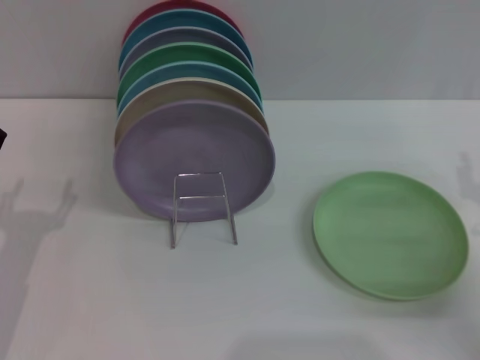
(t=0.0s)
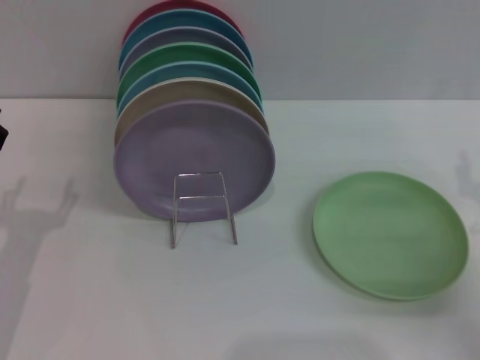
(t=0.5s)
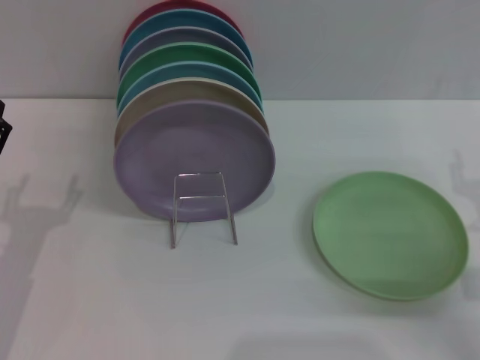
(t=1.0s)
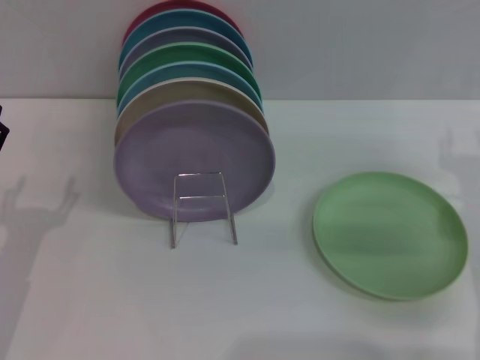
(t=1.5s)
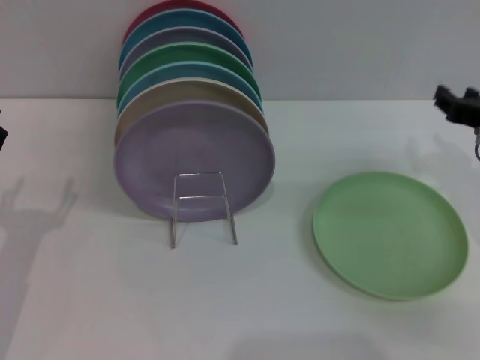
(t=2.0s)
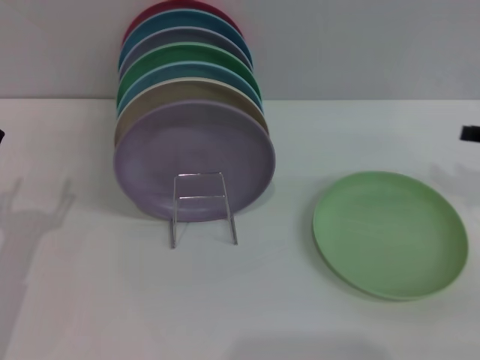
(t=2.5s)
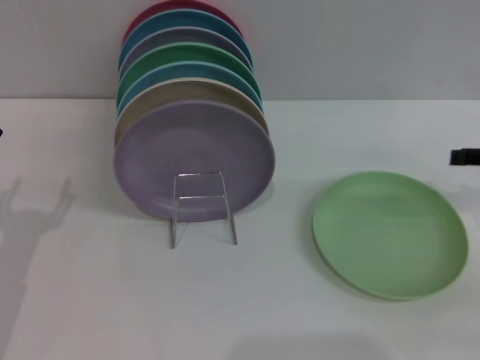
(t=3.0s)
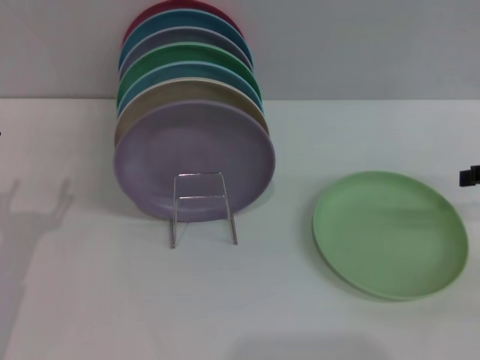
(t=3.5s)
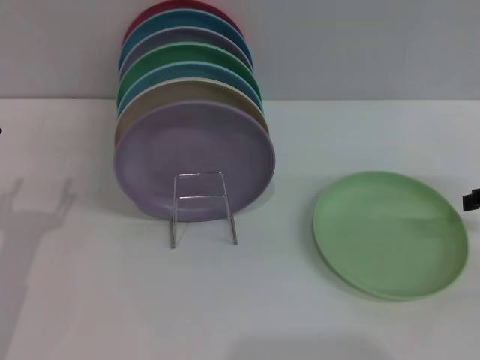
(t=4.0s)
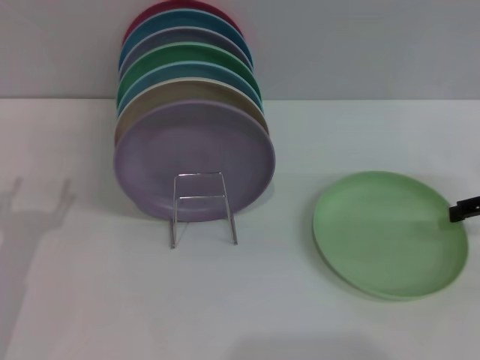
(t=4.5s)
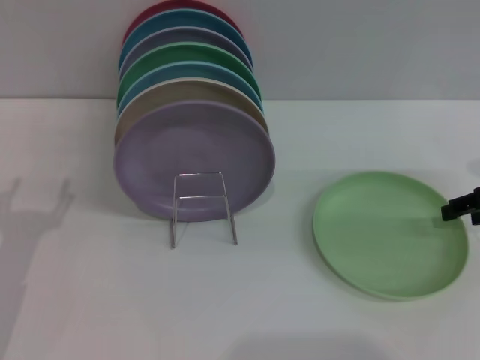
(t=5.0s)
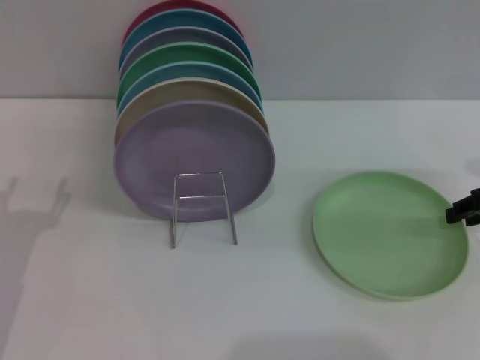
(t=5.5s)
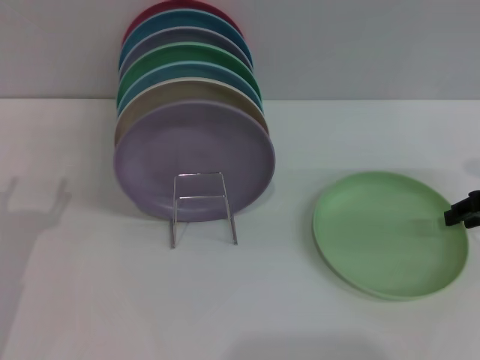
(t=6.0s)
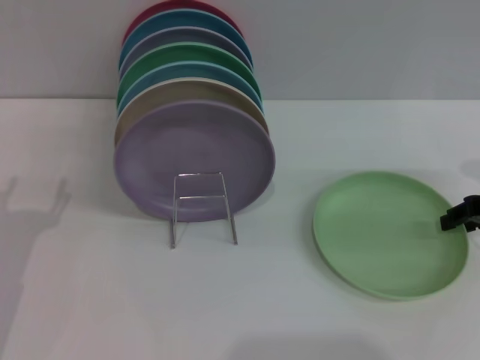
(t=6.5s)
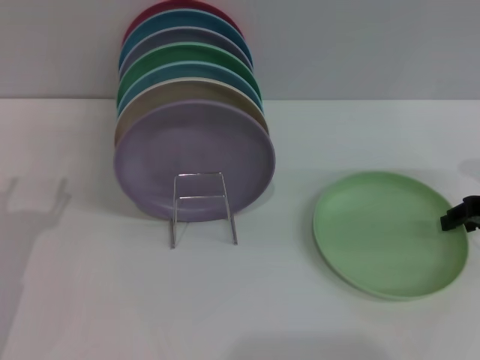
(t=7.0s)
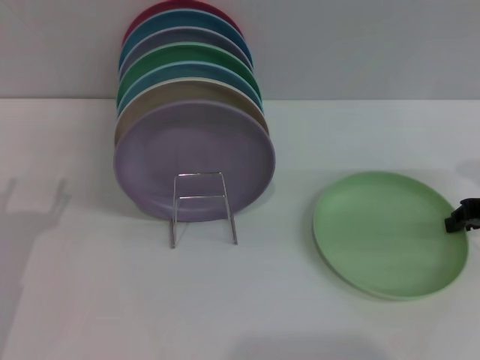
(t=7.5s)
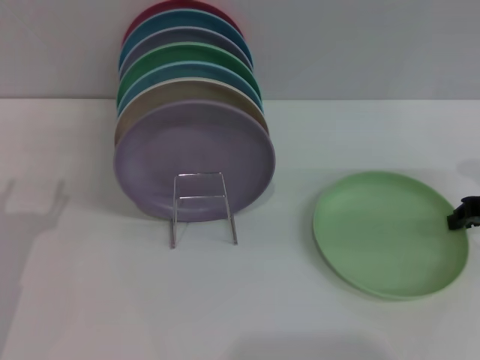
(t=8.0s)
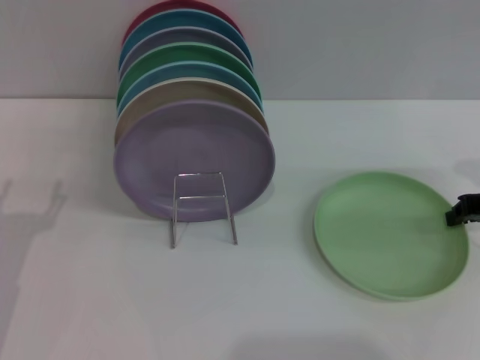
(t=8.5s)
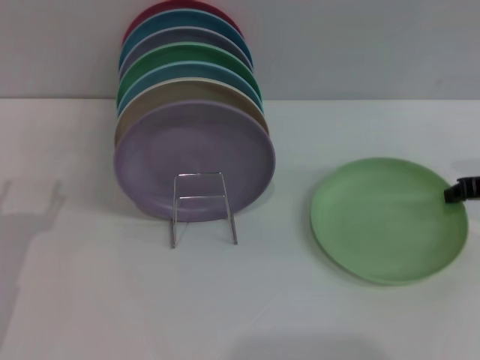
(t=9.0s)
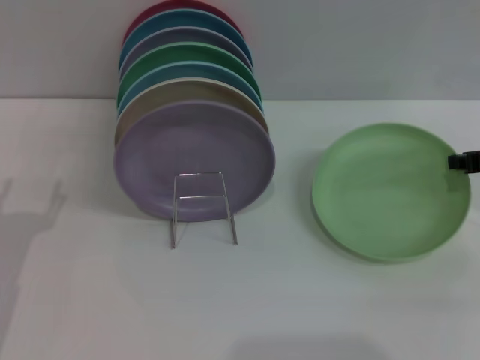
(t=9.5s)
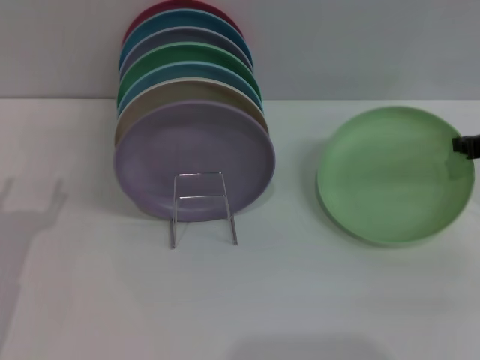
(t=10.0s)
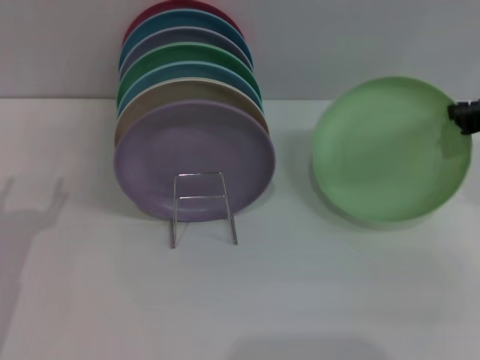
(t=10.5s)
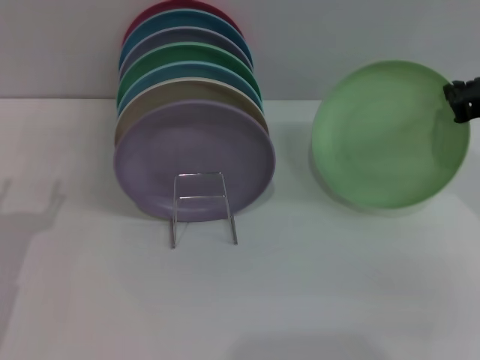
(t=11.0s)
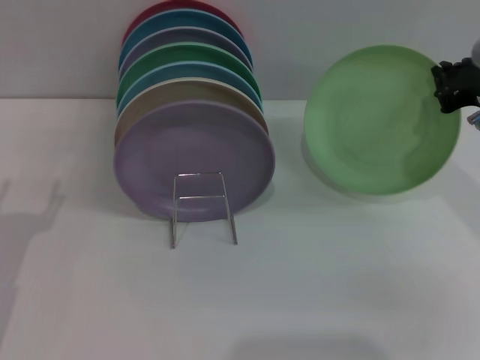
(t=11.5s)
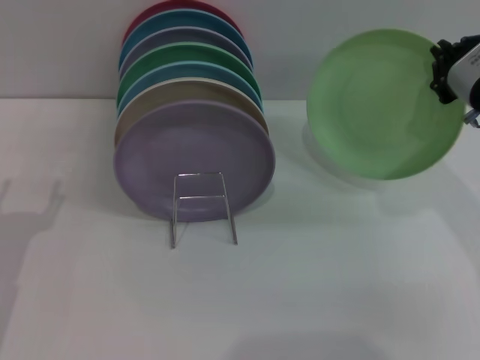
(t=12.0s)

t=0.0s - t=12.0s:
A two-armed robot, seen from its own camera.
Task of the whole recording: Grip the plate with one hand, pass it to the other, then set it on the shelf.
t=0.0s - t=2.0s: The right gripper moves forward and upward, some 10 cm.
t=2.0s - t=4.0s: The right gripper shifts some 10 cm to the right, and opens up.
t=6.0s - t=8.0s: Both grippers stay put.
t=10.0s - t=12.0s: The right gripper is displaced to the left by about 10 cm.

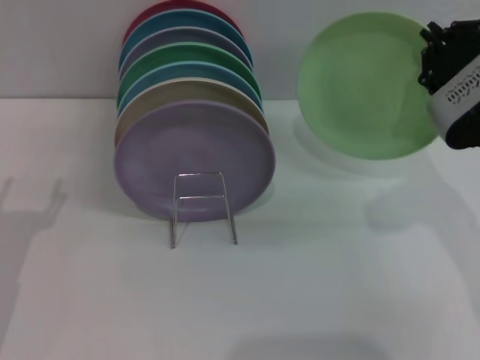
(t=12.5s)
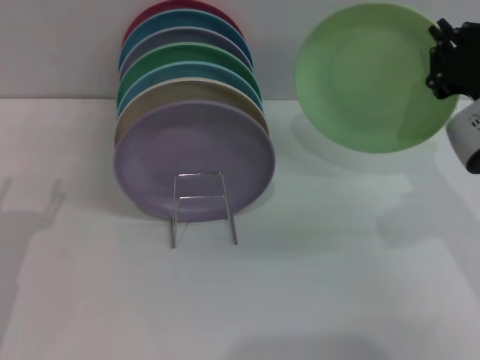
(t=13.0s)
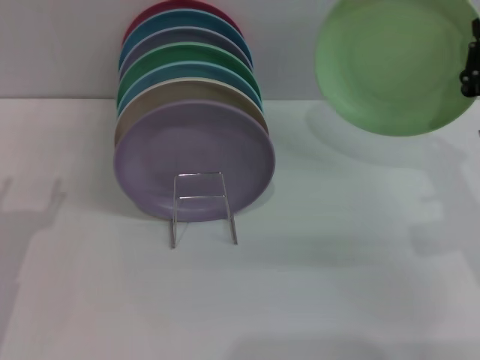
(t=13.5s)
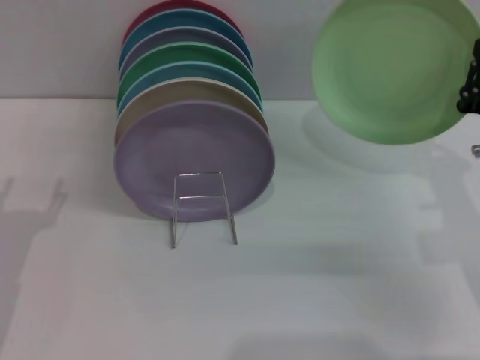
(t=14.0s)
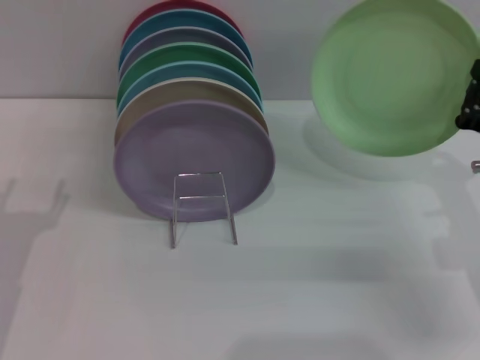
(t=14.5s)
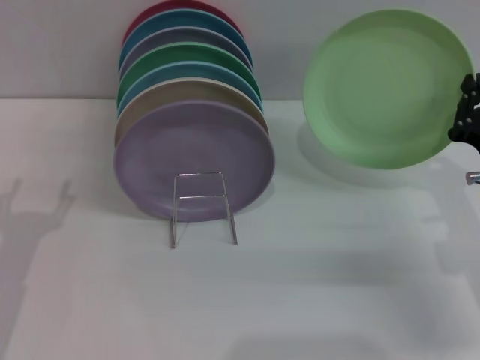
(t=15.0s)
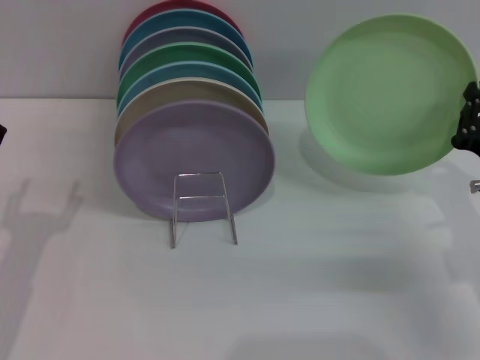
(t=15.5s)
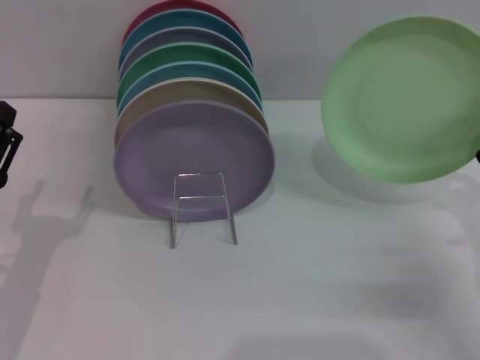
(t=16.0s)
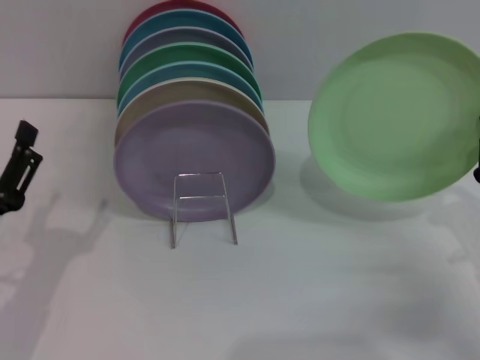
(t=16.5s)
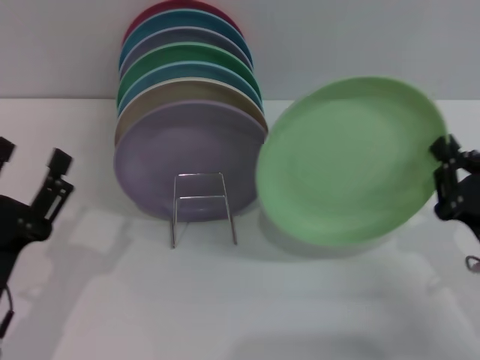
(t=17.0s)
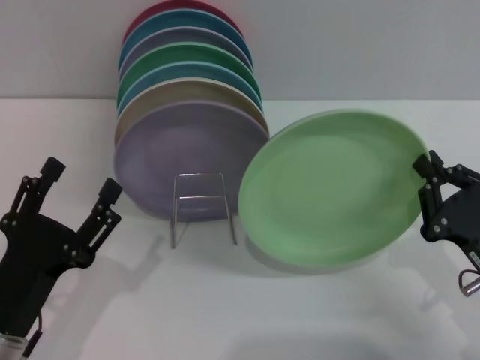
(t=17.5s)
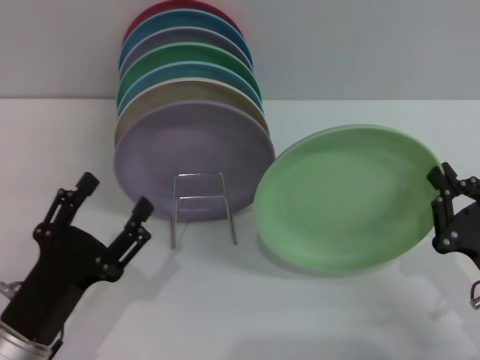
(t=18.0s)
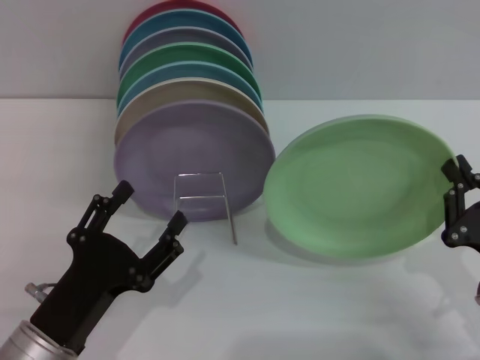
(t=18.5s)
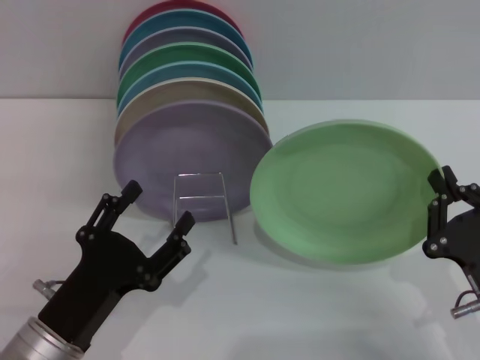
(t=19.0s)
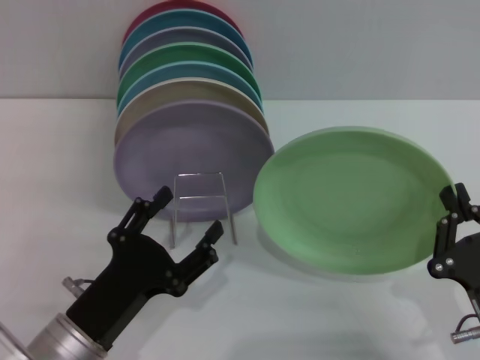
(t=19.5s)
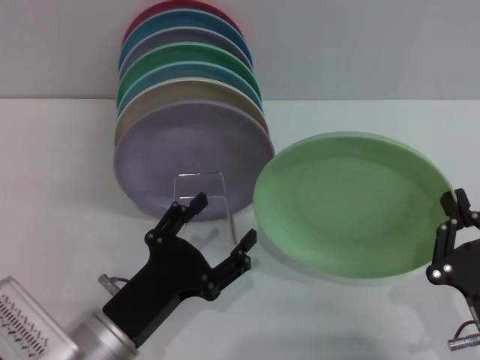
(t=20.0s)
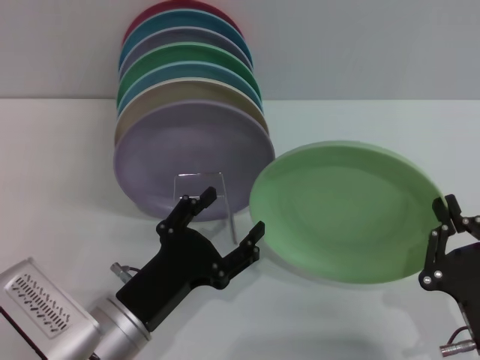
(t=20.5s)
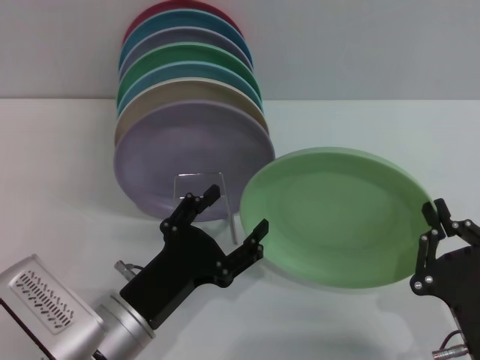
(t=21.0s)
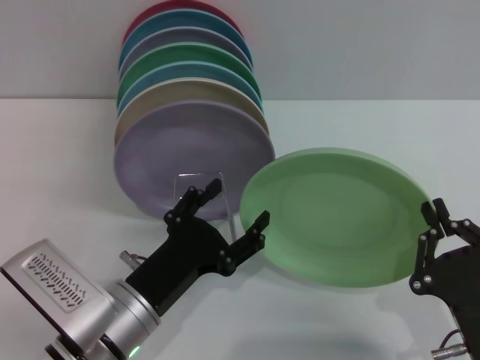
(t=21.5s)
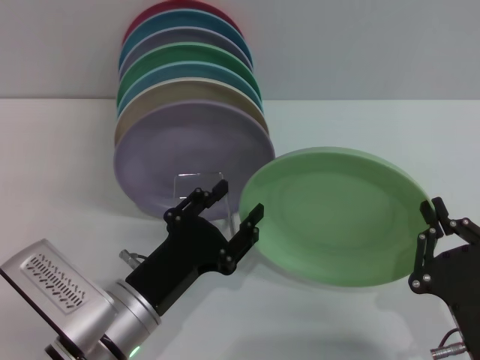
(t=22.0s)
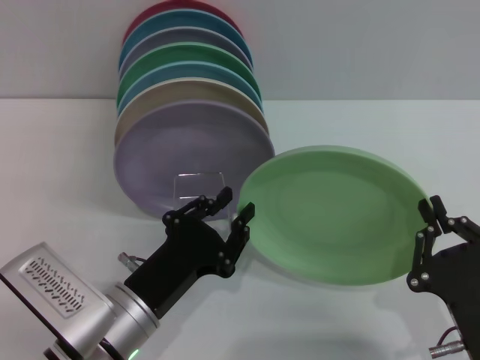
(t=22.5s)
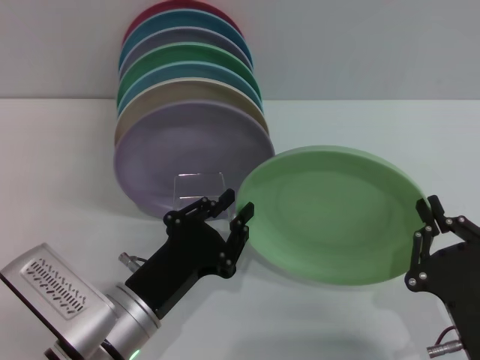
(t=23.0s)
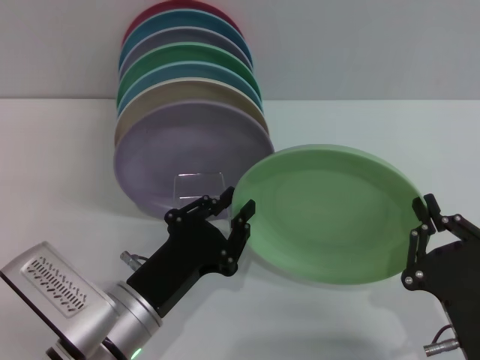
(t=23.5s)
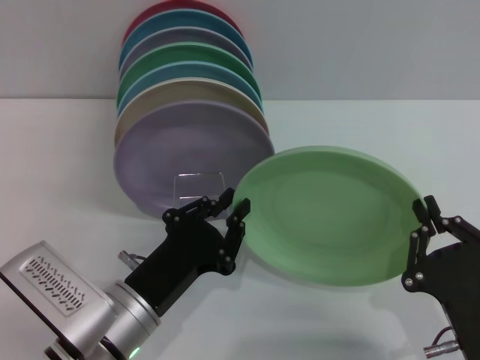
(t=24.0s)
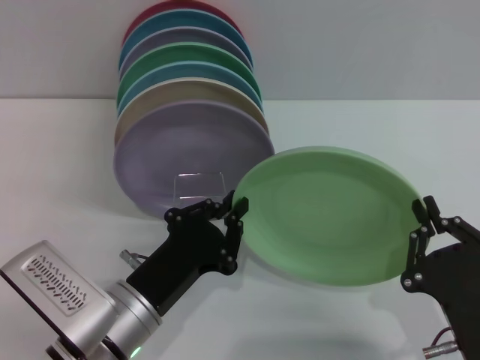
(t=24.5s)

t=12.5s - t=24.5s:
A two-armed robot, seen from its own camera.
Task of the whole recording: Grip the plate with one hand, pass it to the other, then set it on the shelf.
t=12.5s - t=14.5s: The right gripper is displaced downward by approximately 10 cm.
t=14.5s - t=16.5s: The right gripper is displaced backward by some 5 cm.
t=16.5s - t=18.5s: The left gripper shifts about 5 cm to the right. Meanwhile the right gripper ends up approximately 5 cm from where it was.
t=18.5s - t=20.5s: The left gripper travels to the right by approximately 5 cm, while the right gripper is displaced to the left and backward by about 10 cm.
t=20.5s - t=22.5s: The left gripper closes.
t=22.5s - t=24.5s: Both grippers stay about where they are.

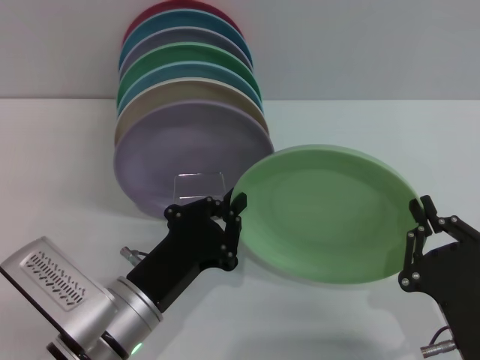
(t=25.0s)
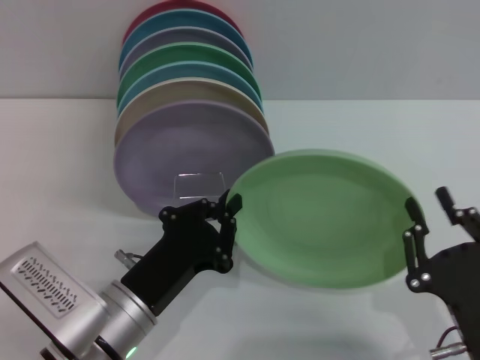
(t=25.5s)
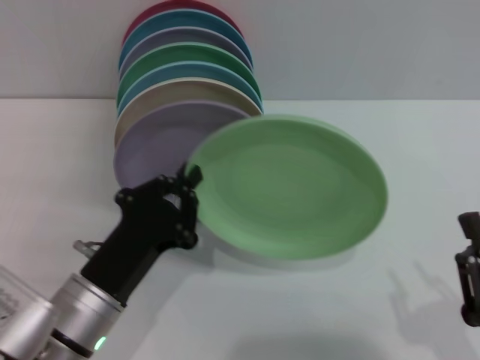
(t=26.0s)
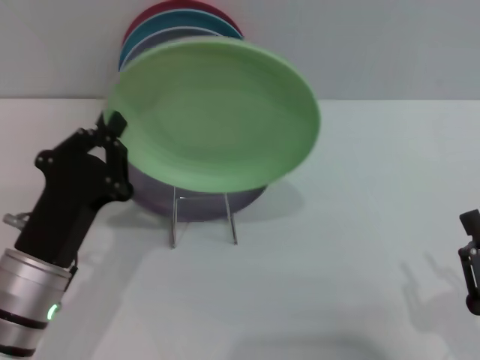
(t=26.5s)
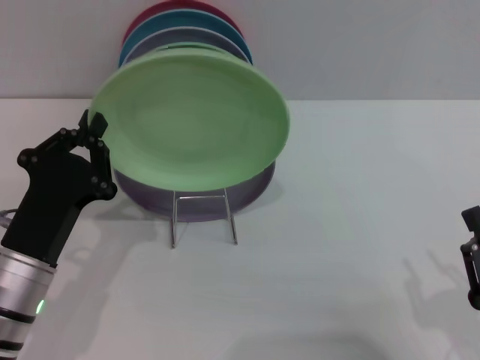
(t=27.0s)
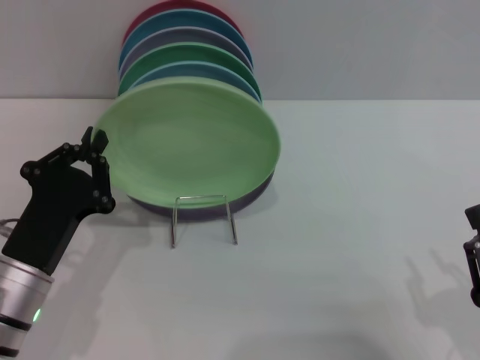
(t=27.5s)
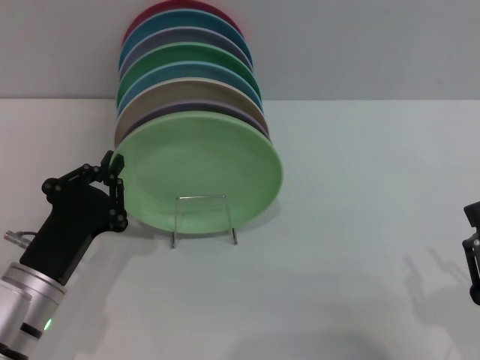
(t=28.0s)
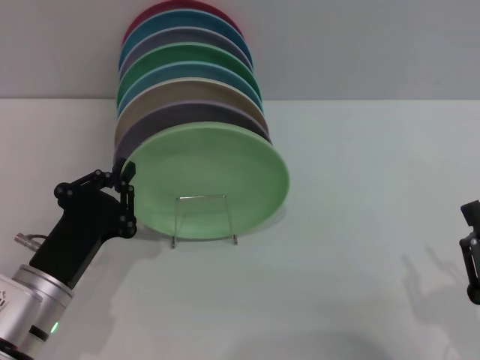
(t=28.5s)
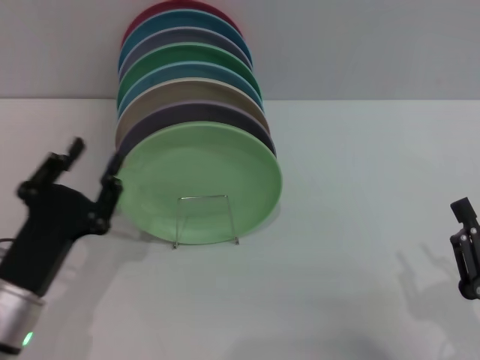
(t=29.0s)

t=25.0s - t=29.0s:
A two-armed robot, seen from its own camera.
Task of the whole recording: Grip the plate with one hand, pass it to the other, then set it on the shelf.
Step, t=26.0s - t=29.0s: Place the plate on the shelf with the left gripper.
t=25.0s - t=27.0s: The right gripper goes about 5 cm to the right, and opens its fingers. The left gripper is displaced to the left by some 5 cm.
t=27.0s - t=29.0s: The left gripper opens its fingers.
